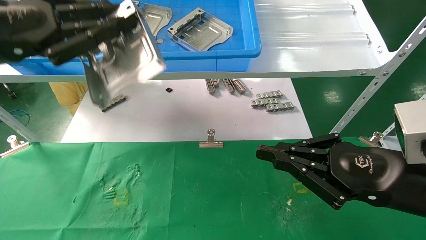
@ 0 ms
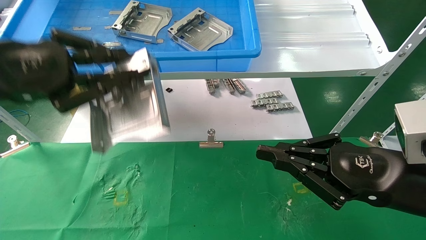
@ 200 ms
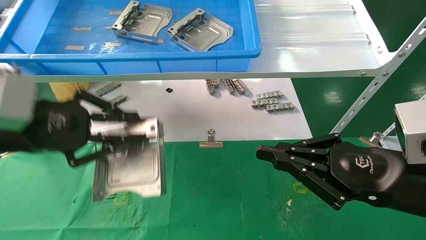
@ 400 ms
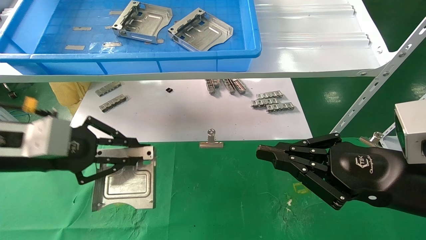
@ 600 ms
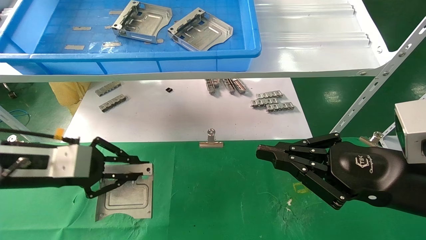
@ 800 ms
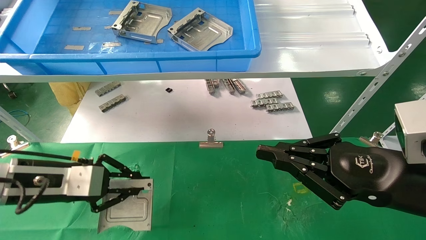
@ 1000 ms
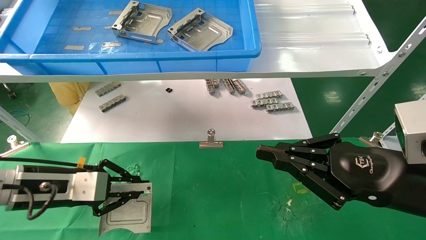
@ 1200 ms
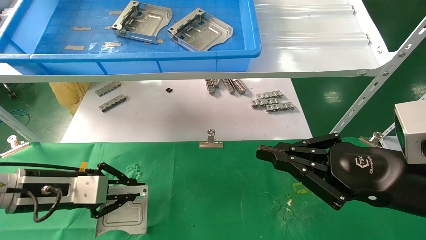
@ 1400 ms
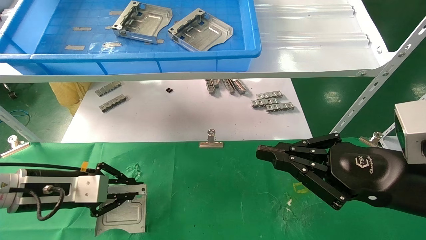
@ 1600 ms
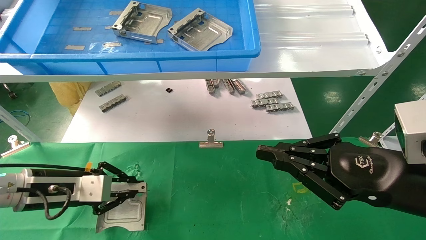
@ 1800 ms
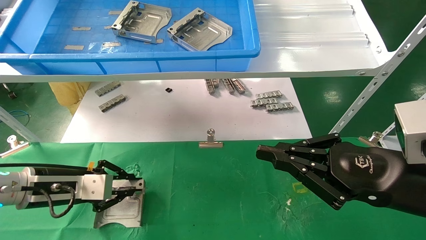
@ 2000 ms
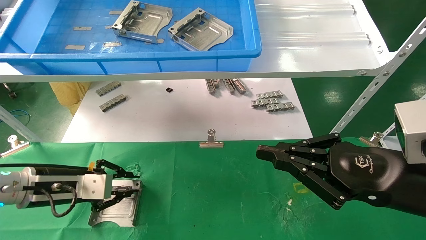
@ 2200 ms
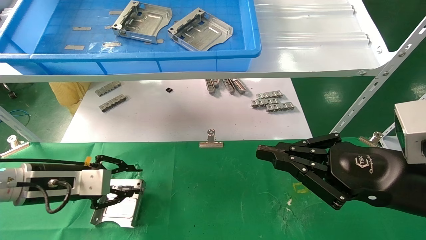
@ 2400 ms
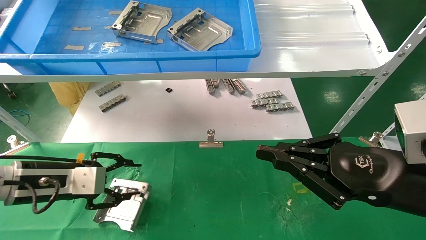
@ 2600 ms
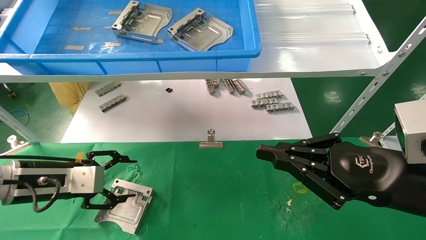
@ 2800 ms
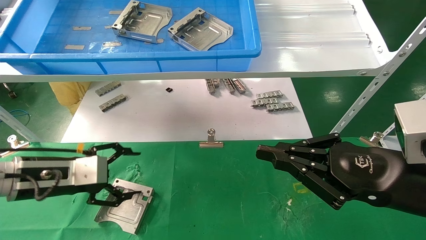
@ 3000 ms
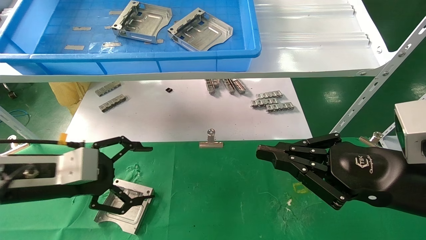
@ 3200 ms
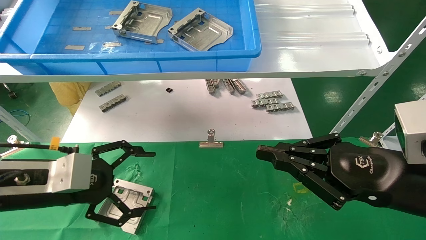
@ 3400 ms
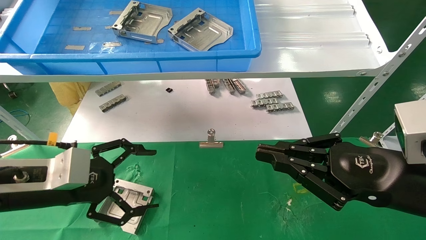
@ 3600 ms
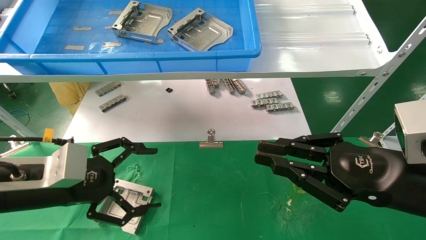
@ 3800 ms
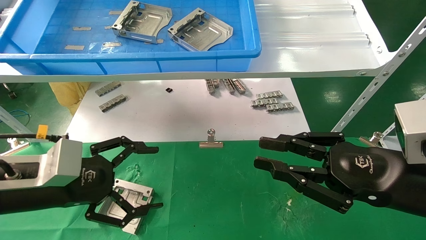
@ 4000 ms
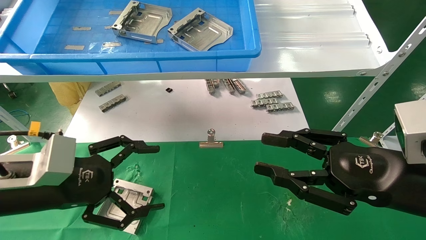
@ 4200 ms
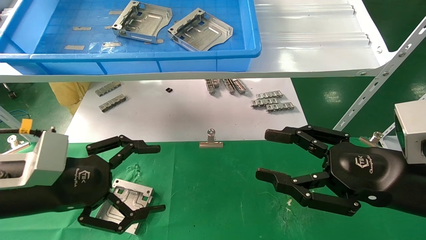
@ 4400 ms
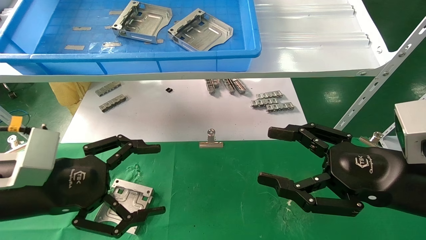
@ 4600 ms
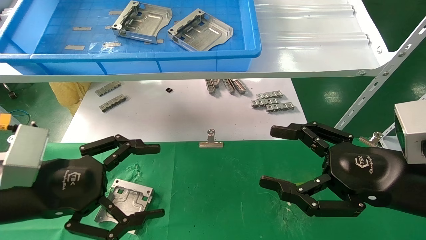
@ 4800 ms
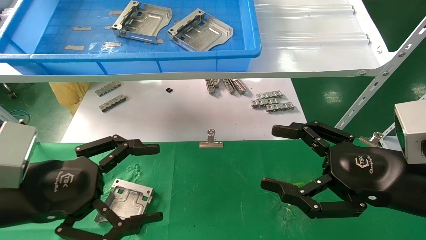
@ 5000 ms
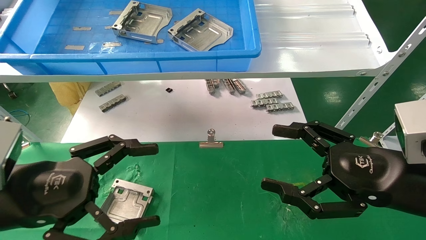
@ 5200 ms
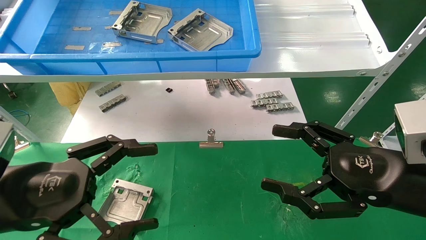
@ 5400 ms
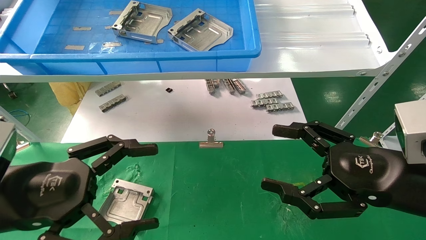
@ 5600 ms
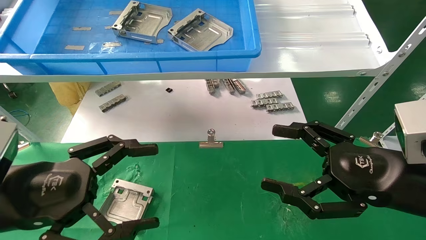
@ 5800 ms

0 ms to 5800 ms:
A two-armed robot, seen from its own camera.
Task of the whole recording: use the mechanical arm to pick up the parts and place them on the table.
Step, 0 ms to 2200 ms: Place the hard drive bracket into the box.
0 ms to 1400 ms: The left gripper shifts some 20 cm downward.
1400 ms to 2800 ms: The left gripper opens.
2800 ms to 4400 ms: The right gripper opens its fingers, while the left gripper travels backward by approximately 10 cm, and opens up.
4400 ms to 5800 ms: The right gripper opens up.
